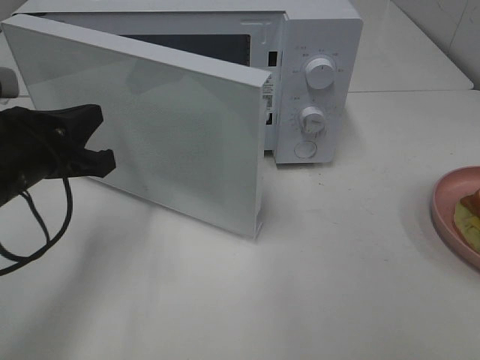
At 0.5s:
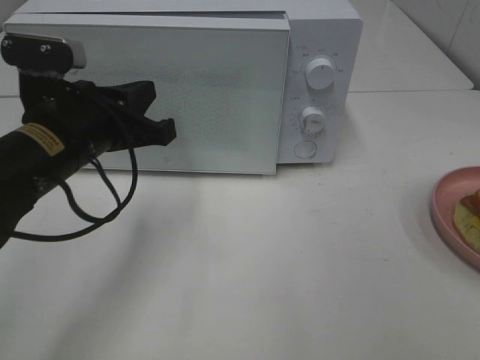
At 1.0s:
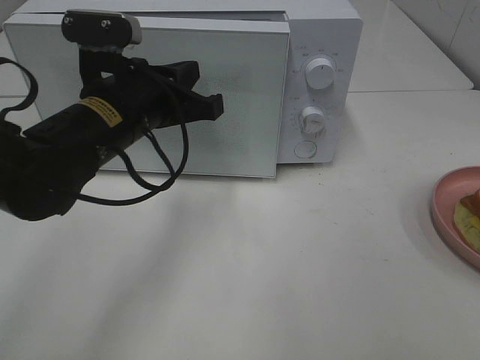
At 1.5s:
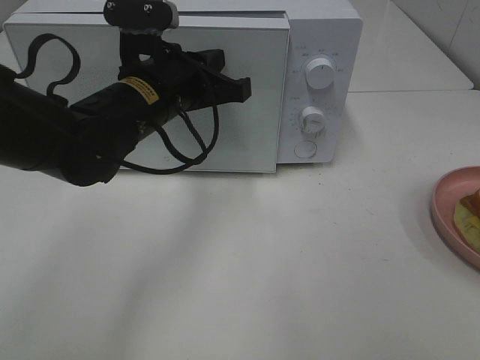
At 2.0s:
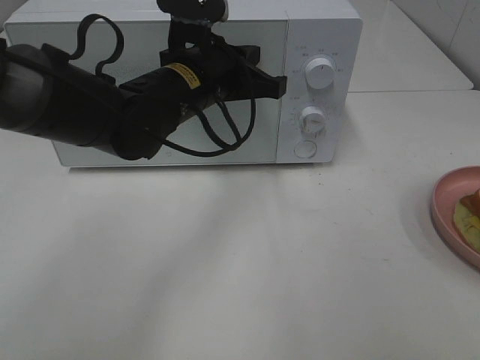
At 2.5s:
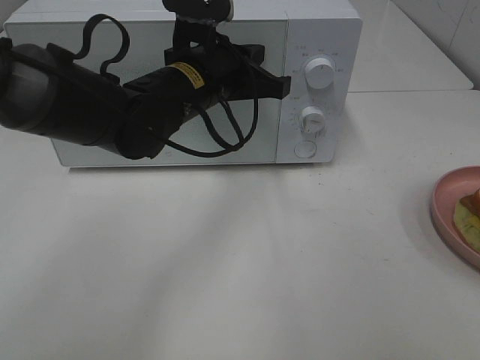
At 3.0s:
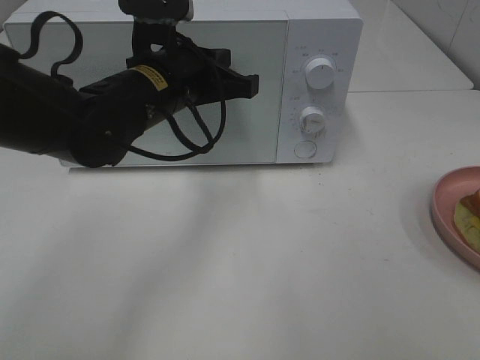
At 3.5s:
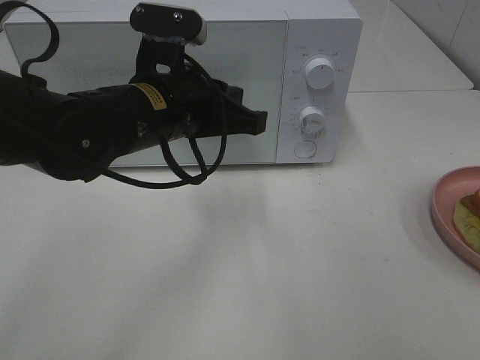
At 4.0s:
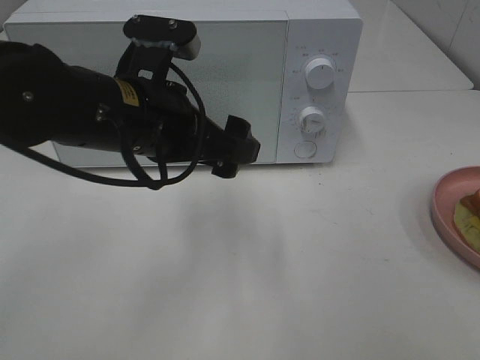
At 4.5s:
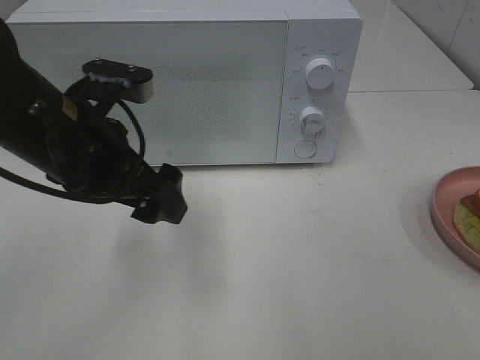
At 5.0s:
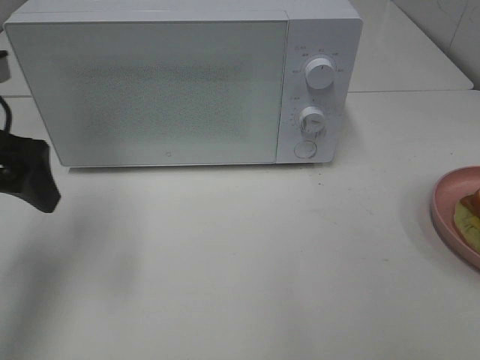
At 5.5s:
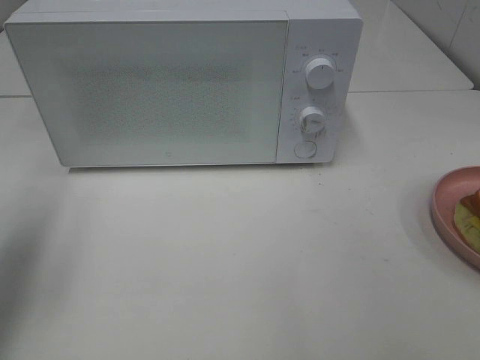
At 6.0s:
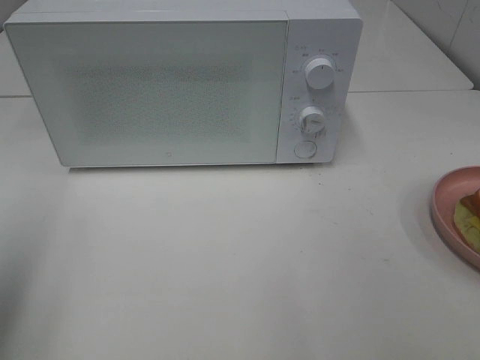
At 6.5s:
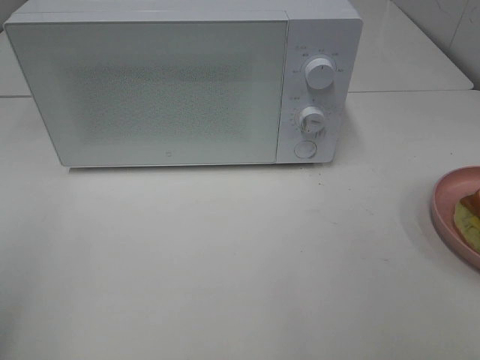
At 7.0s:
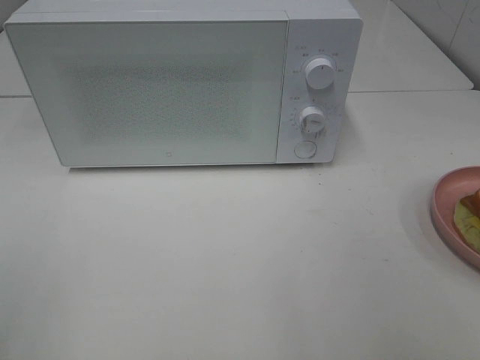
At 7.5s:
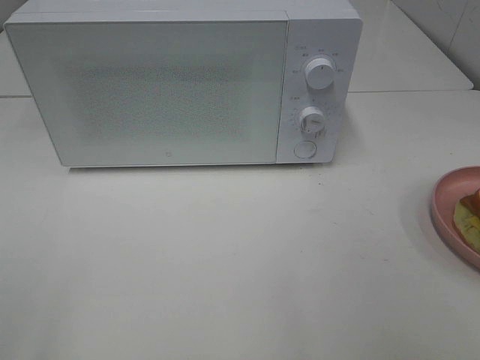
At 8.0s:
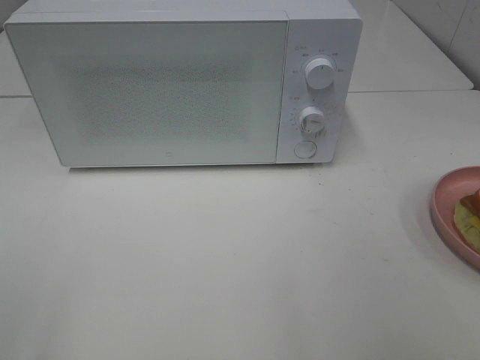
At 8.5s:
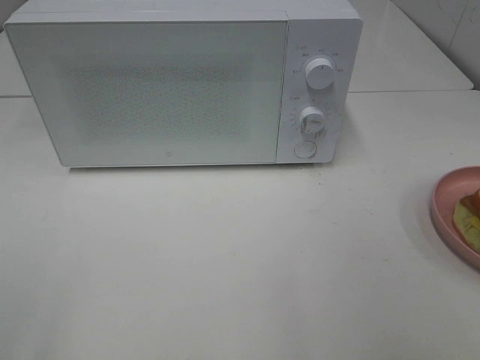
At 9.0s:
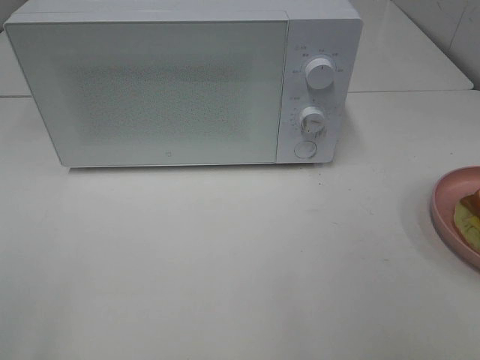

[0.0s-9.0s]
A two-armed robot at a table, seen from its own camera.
Task of the whole recording: Heat Sandwich.
Step, 0.0s to 3.0s: Left hand: close the microwave door.
0.0s to 2.0s: The left gripper is displaced to the right and forward by roughly 20 cm.
2.0s to 4.5s: The left gripper goes some 15 cm backward and to the left, and opens up.
4.5s to 7.0s: The left gripper moves backward and to the left, some 30 cm.

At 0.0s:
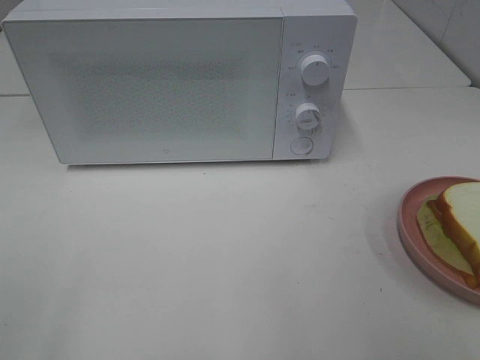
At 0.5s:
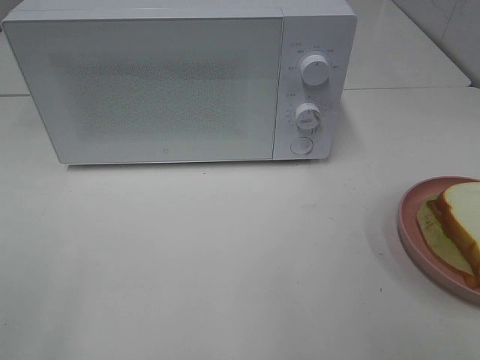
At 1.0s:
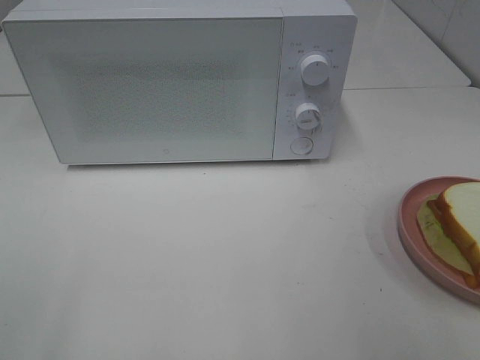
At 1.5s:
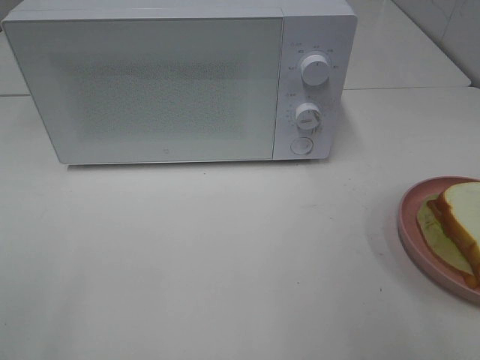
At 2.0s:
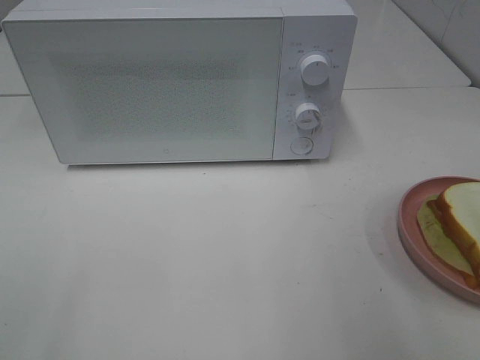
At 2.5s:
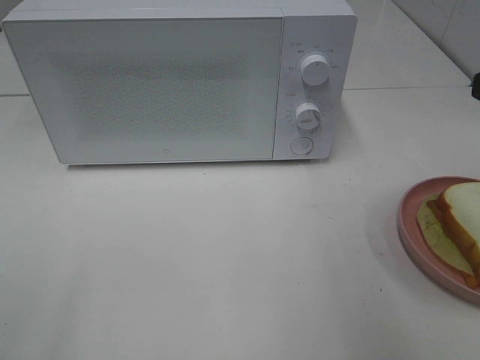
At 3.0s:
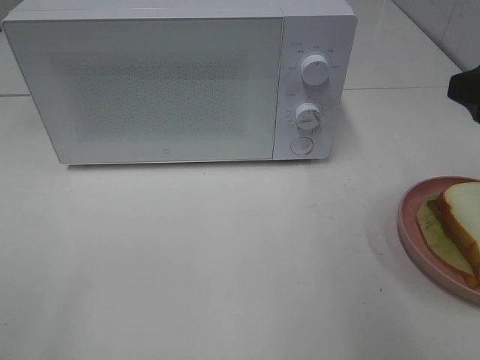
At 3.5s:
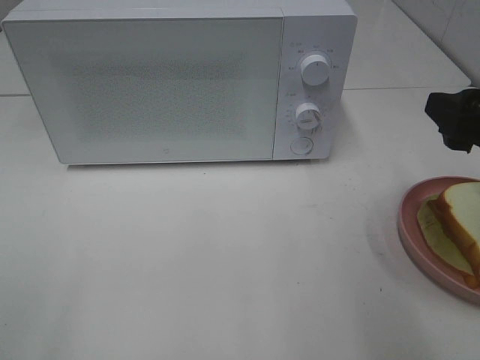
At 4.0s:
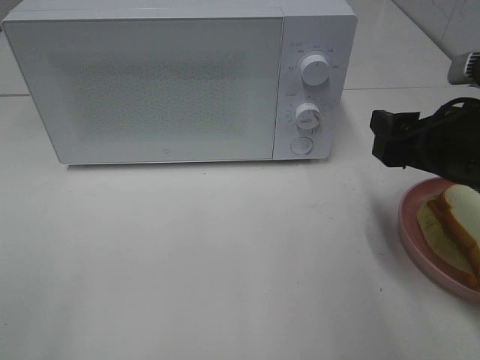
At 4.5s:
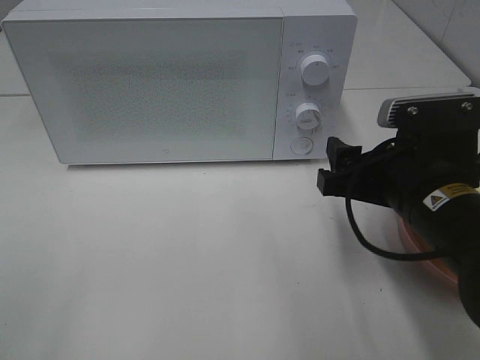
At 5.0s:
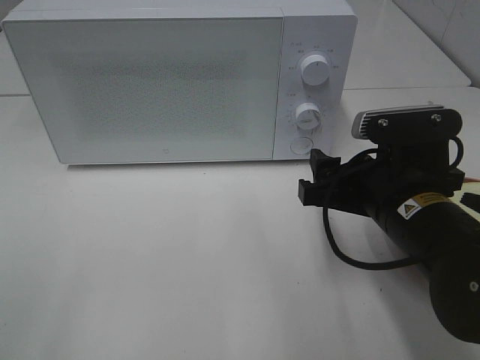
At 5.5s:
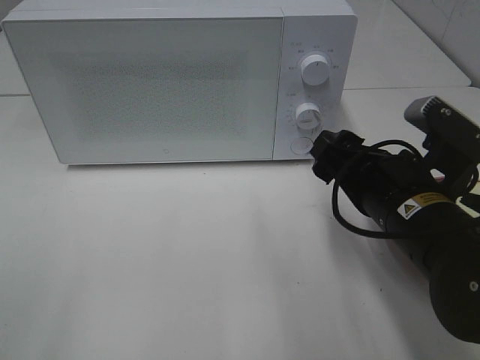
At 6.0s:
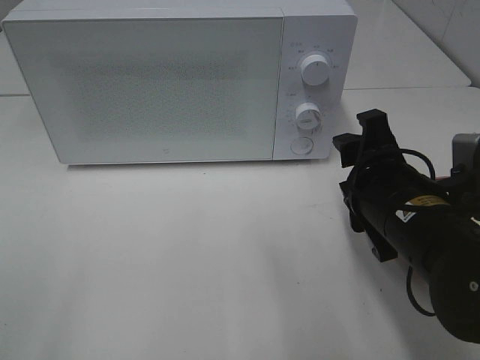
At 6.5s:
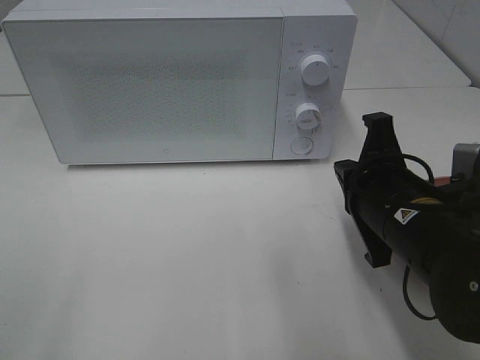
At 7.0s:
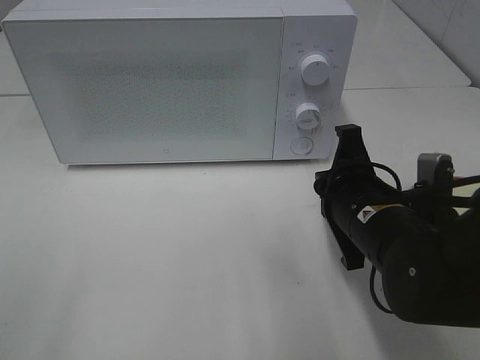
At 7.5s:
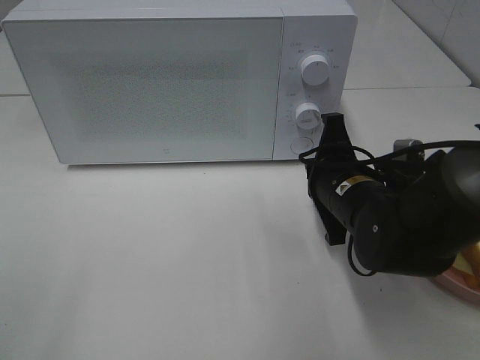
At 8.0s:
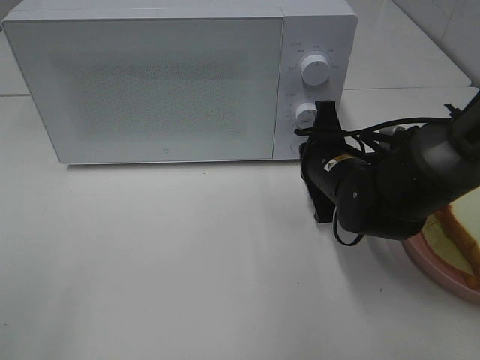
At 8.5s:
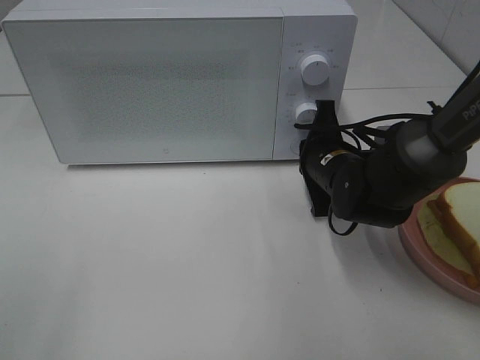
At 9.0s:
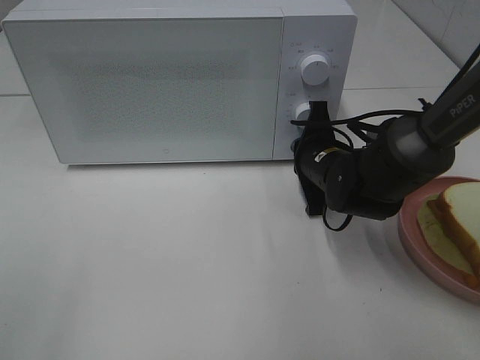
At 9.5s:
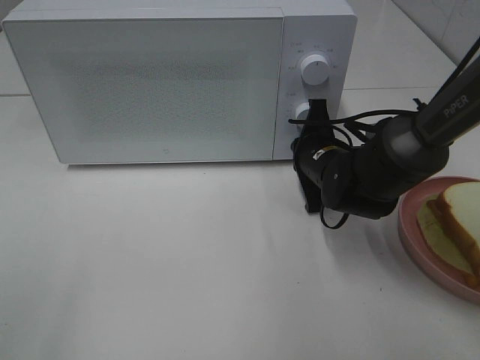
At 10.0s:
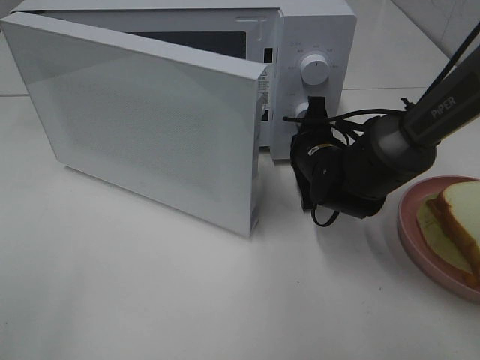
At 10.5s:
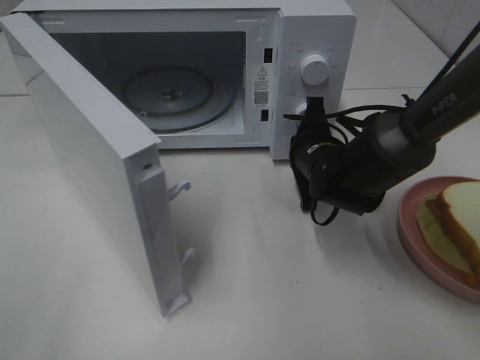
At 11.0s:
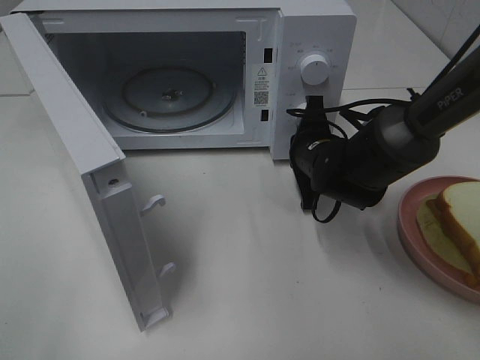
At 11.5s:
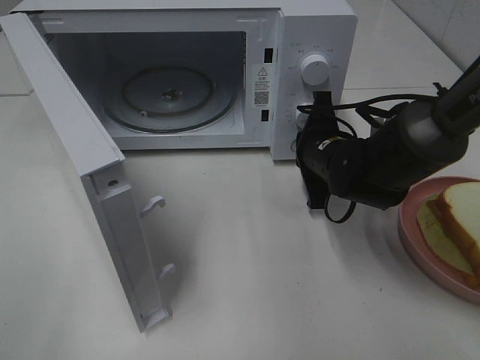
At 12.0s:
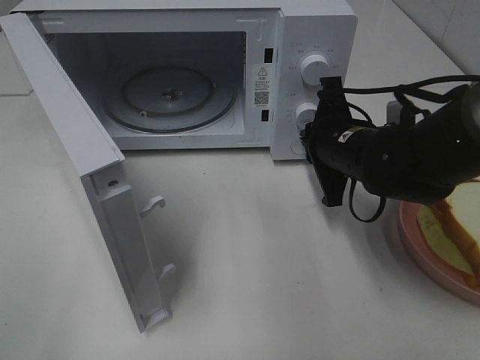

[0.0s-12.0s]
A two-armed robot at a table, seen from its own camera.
Task of the whole recording: Heat Sandwich.
Step, 0.0s to 11.5s: Right hand: press the switch.
2.0s to 4.0s: The right gripper moves downward, forward and to the left, roughly 15 cm.
4.0s to 6.0s: The right gripper heads to the left, covering about 5 cm.
6.0s to 8.0s: The right gripper travels forward and downward by roughly 10 cm, and closes up.
10.0s to 12.0s: The right gripper is displaced upward by roughly 5 cm.

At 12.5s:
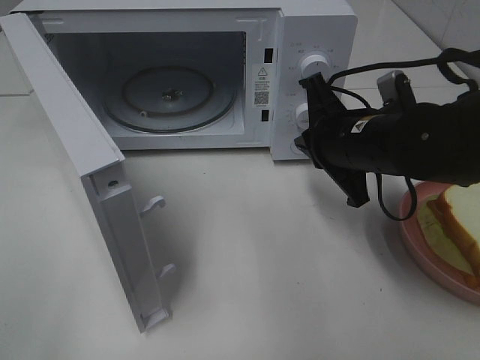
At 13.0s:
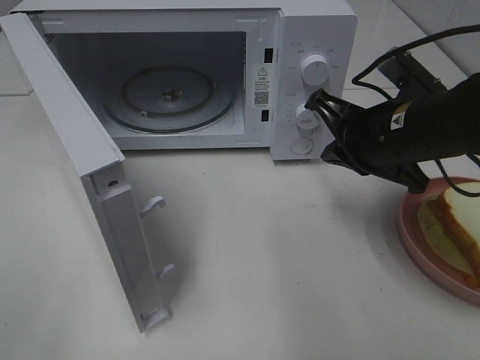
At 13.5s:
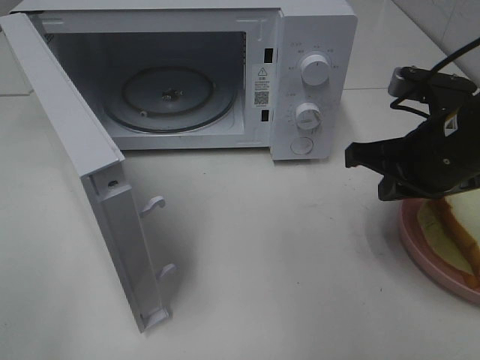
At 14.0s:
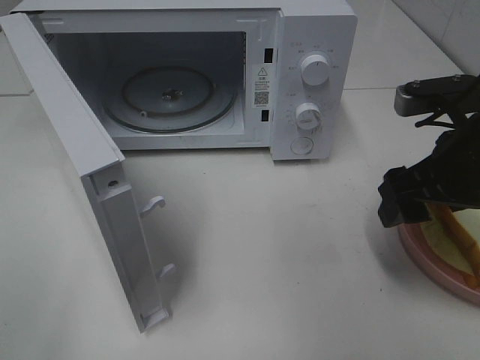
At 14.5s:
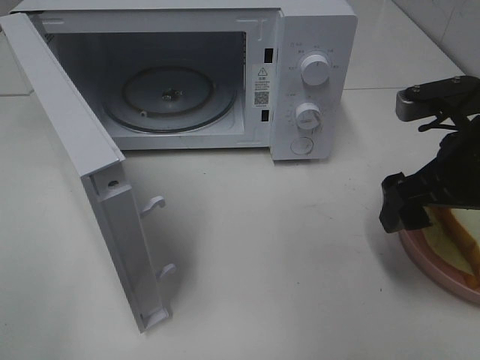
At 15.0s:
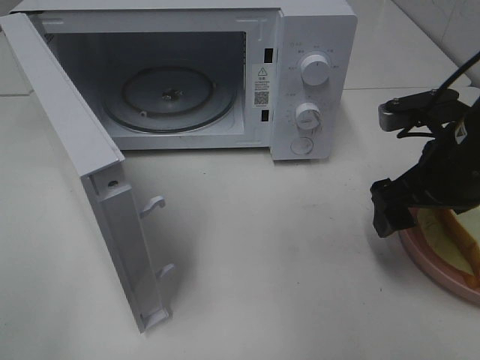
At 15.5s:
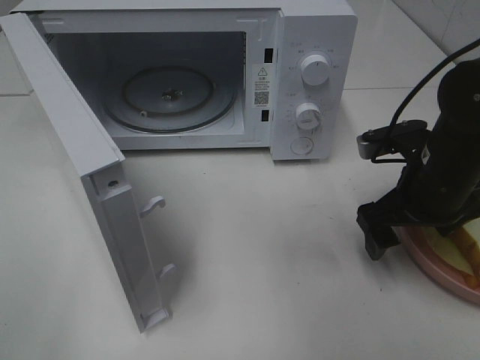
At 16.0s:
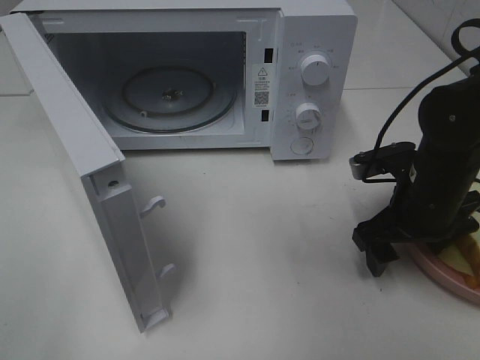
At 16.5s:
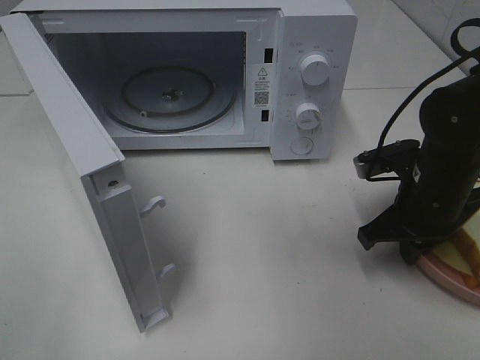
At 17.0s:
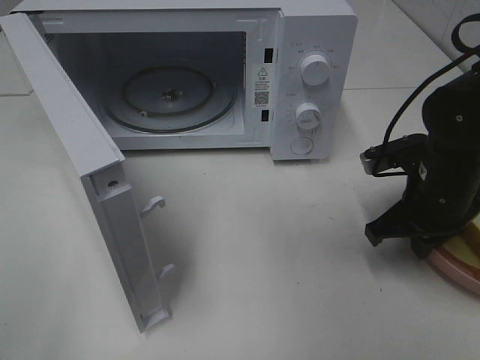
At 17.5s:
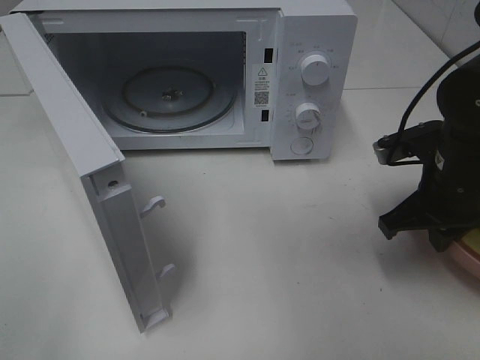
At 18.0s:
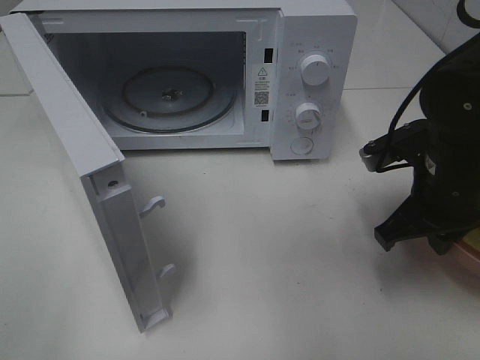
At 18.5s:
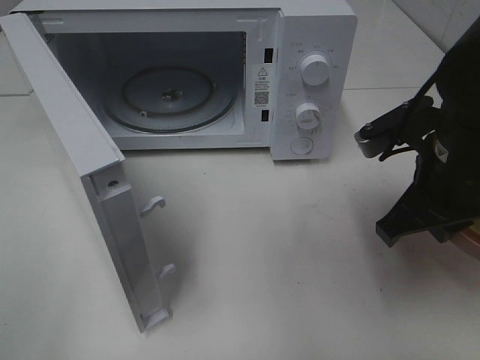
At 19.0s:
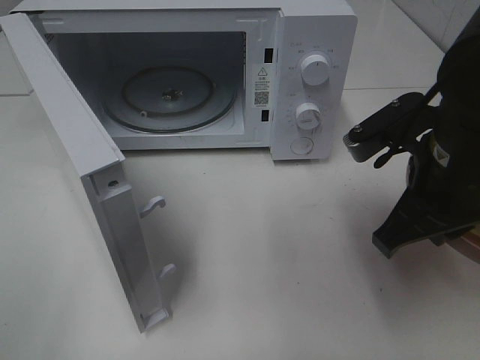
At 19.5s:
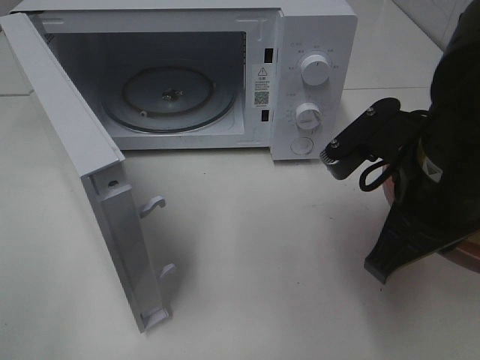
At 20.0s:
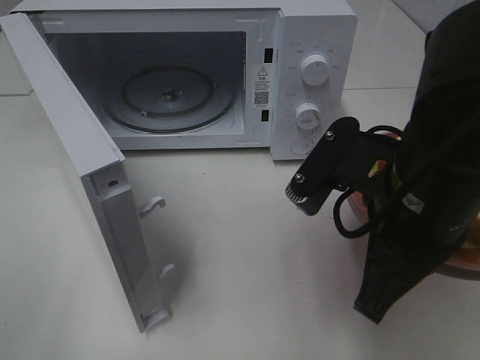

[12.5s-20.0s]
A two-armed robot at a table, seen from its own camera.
Task of the whole recording: Heat Sandwich.
Step, 12.5s to 16.0s: Right hand: grab the plate with the sandwich.
12.5s to 14.5s: The right gripper shifts roughly 10 cm to the right and backward, and opens.
14.5s to 16.5s: The right gripper heads downward, covering roughly 10 cm, and closes its fingers.
16.5s to 18.0s: The right gripper moves roughly 5 cm.
18.0s to 20.0s: The right gripper shifts roughly 15 cm backward, to the left and upward.
